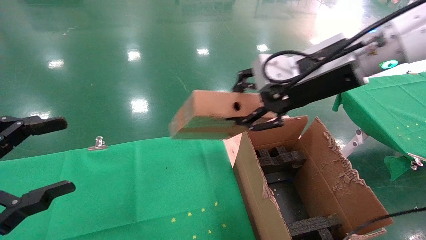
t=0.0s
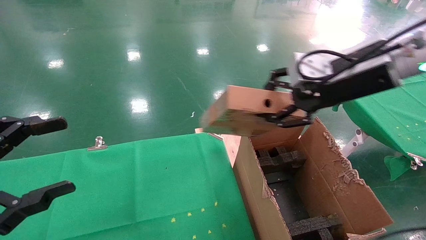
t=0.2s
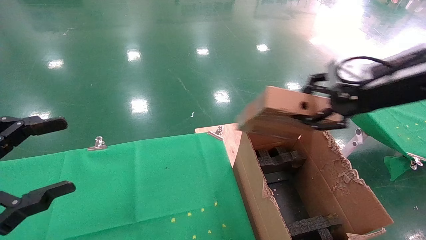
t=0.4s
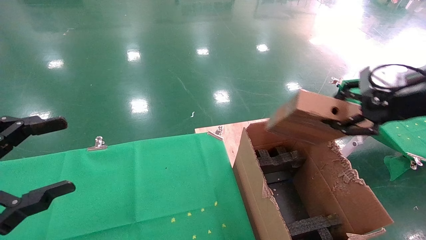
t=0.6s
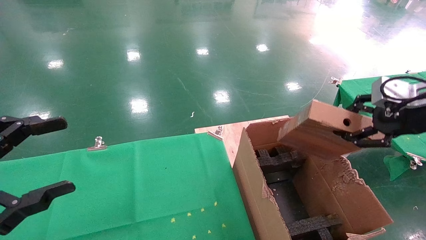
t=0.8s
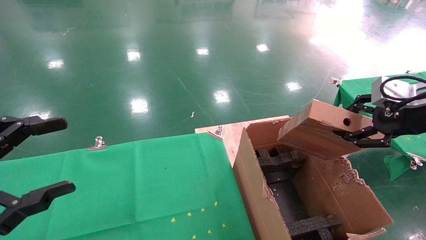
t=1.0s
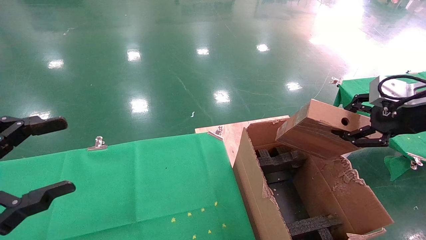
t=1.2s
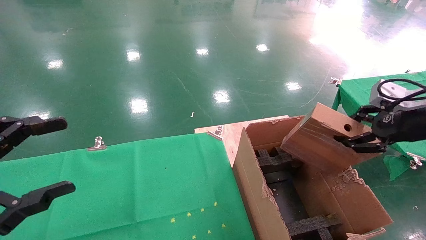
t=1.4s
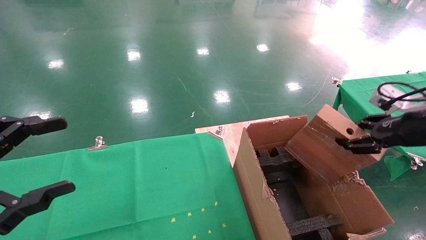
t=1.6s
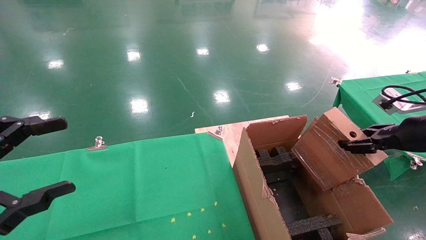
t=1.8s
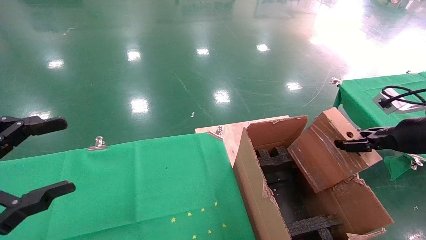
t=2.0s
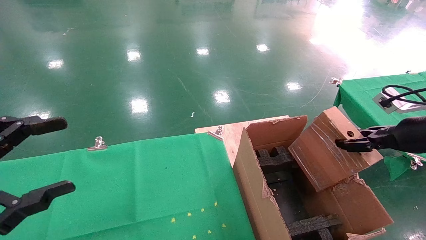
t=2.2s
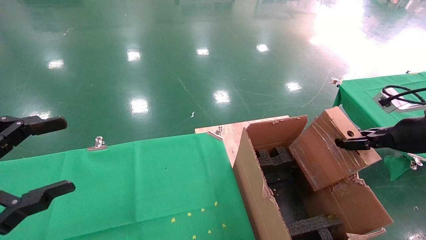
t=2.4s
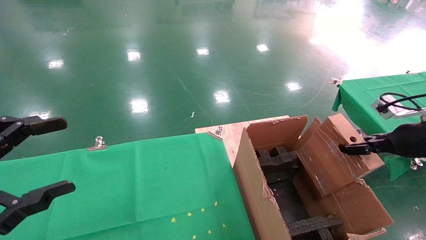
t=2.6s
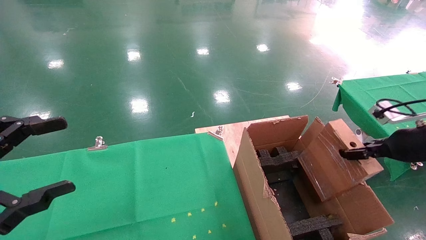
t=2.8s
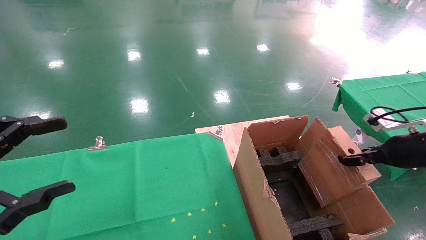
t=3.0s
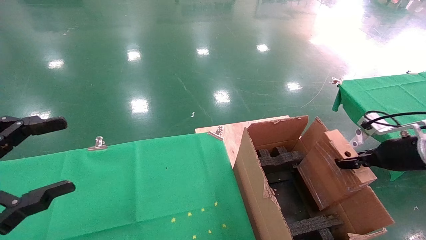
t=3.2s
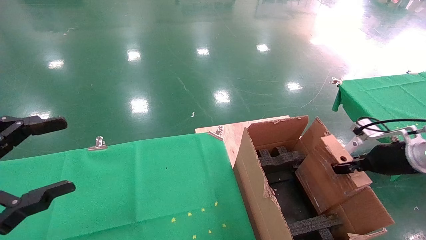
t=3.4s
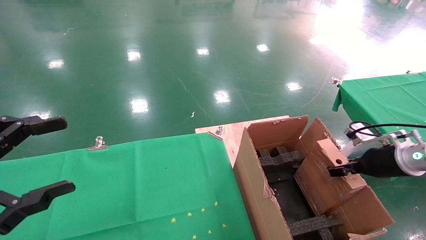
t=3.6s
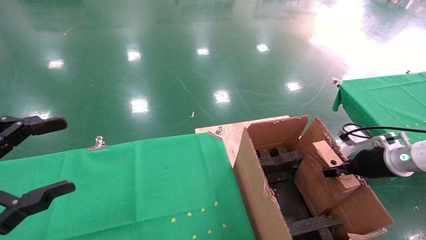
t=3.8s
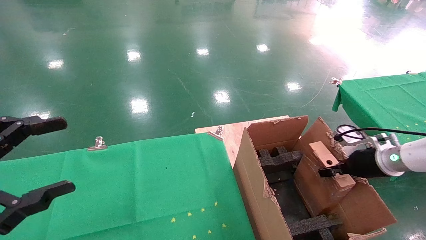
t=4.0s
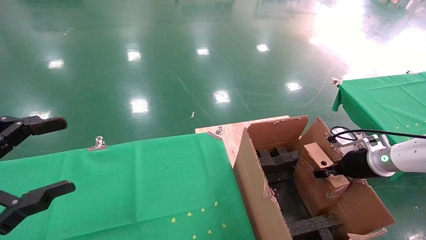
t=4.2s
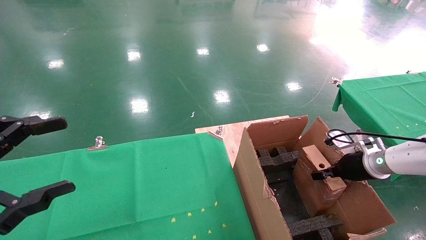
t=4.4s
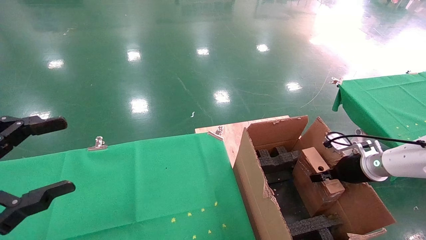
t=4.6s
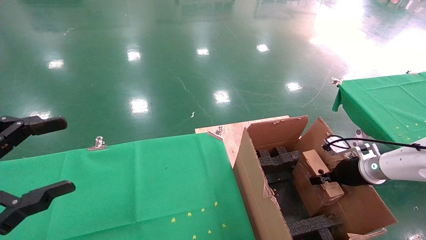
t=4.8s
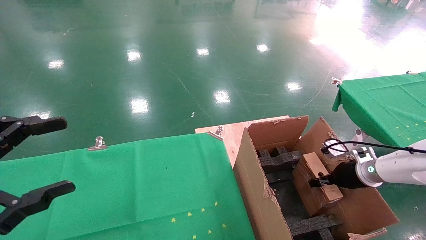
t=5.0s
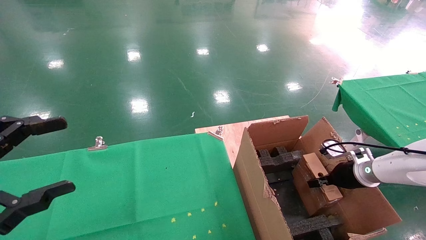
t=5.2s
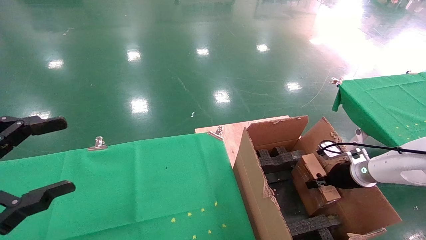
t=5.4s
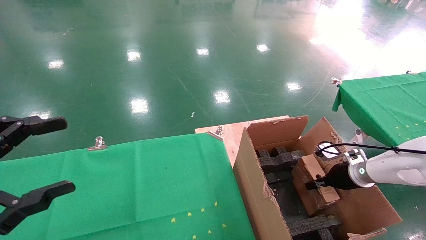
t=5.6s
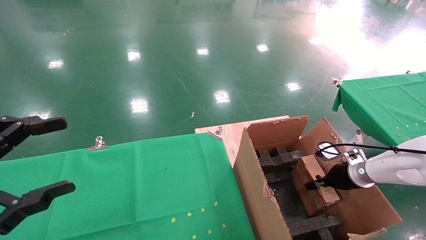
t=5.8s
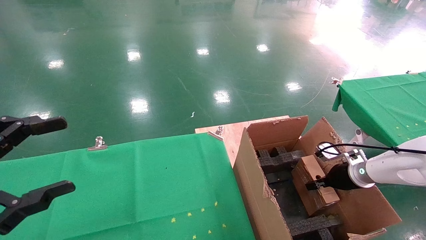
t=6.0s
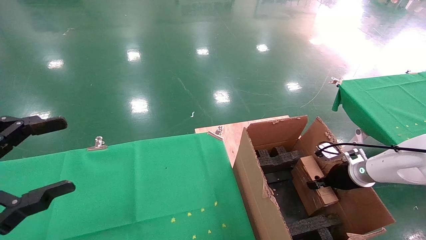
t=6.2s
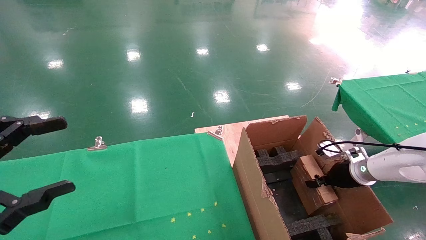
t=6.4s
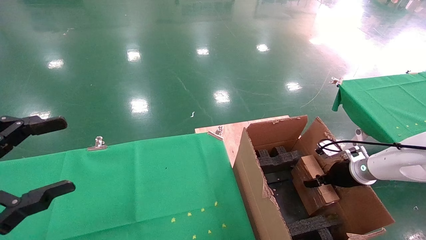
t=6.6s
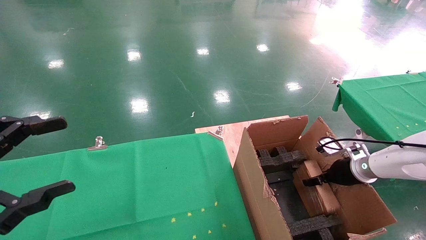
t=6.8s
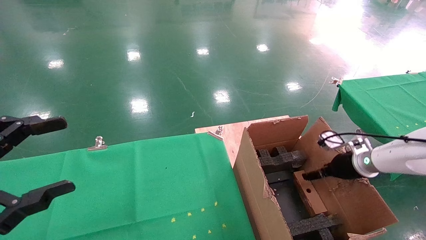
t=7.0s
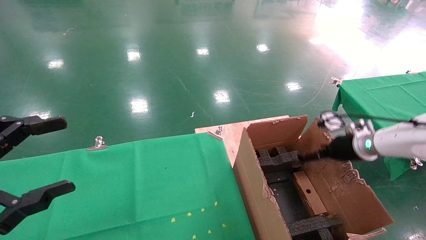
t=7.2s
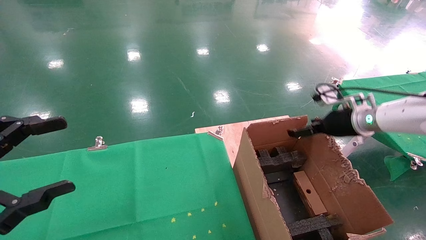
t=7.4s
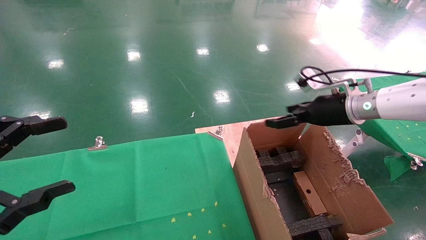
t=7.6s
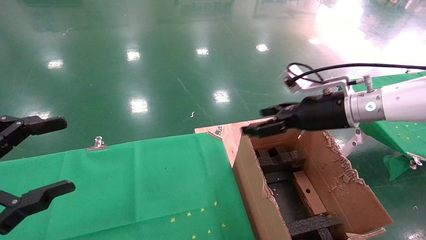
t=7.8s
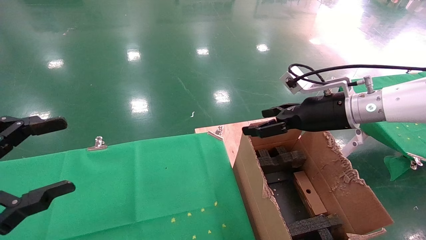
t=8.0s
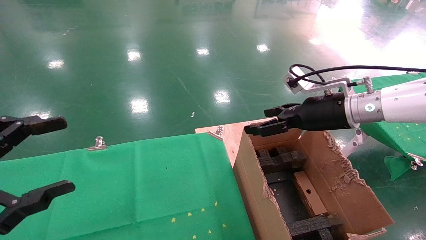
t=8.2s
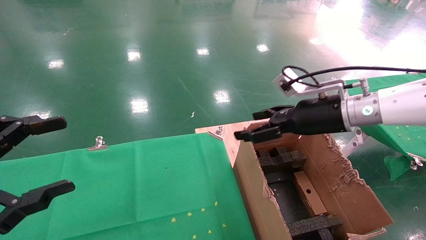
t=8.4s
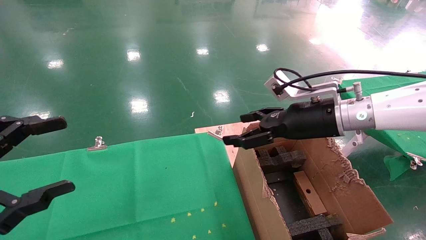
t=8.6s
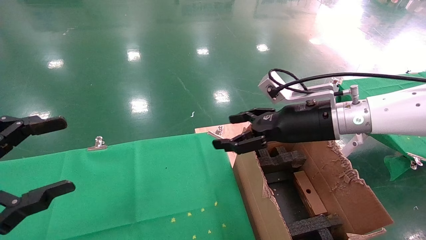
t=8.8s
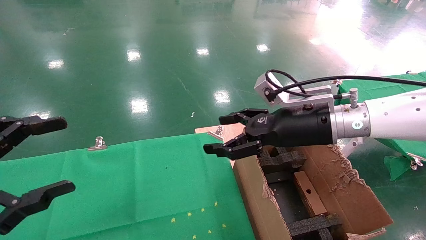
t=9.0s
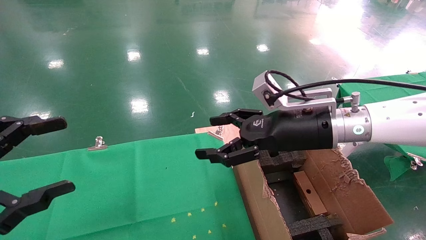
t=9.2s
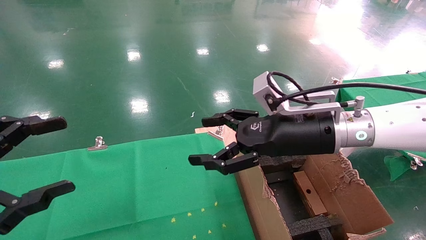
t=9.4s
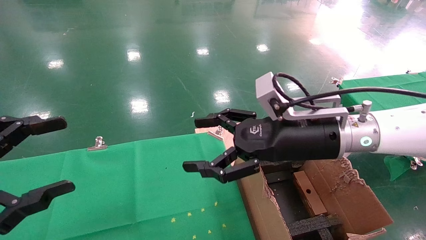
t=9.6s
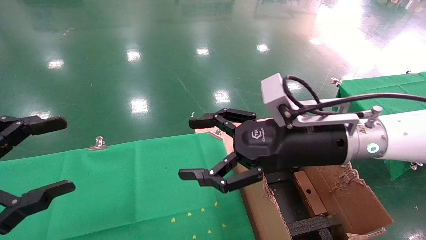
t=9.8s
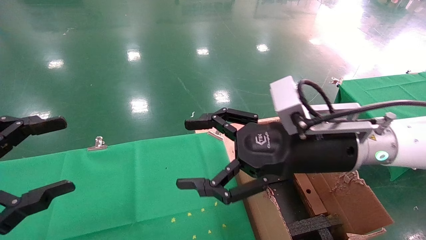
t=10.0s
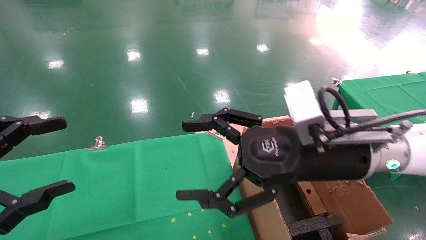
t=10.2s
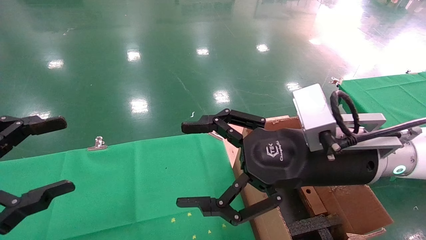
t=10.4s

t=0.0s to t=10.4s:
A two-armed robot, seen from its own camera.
Task of the whole recording: using a robotic arm to pick up a cardboard box and palace it the carton.
Step, t=0.0s to t=7.6s: Place the mouse and the power cord paper box into the container.
t=0.0s to t=1.4s: The right gripper is displaced to the right by some 20 cm.
t=1.4s to t=3.0s: The right gripper shifts roughly 10 cm downward.
t=3.0s to t=4.4s: The right gripper moves downward and forward, some 10 cm.
t=4.4s to t=6.0s: The right gripper shifts by approximately 5 cm.
t=6.0s to t=7.4s: The right gripper moves upward, about 15 cm, and opens.
t=7.4s to t=9.0s: The right gripper shifts about 20 cm to the left and backward.
t=9.0s to t=10.4s: The right gripper shifts roughly 10 cm backward.
